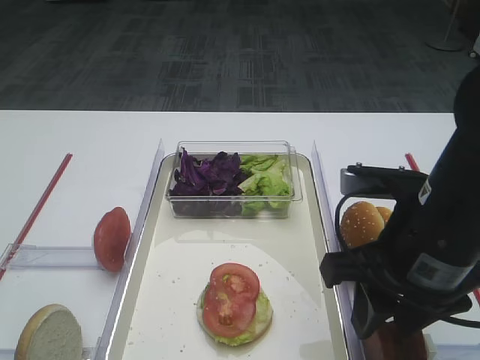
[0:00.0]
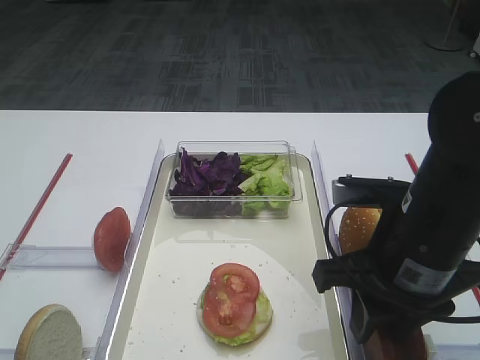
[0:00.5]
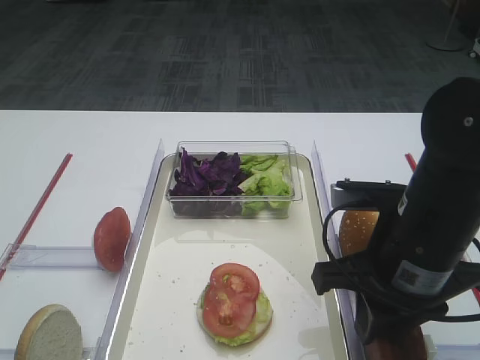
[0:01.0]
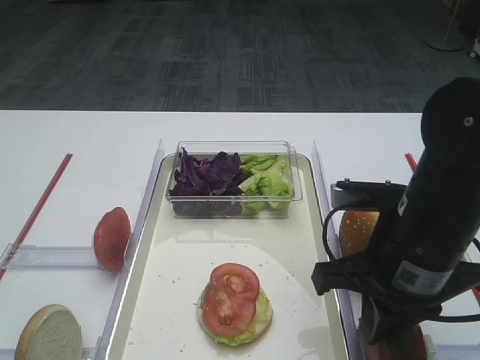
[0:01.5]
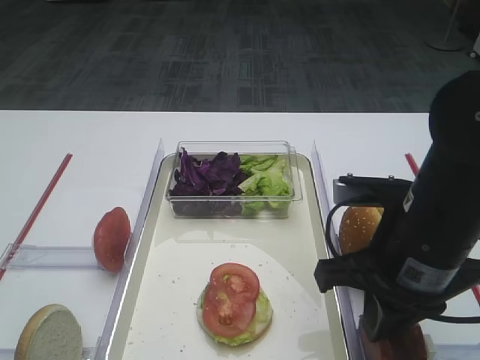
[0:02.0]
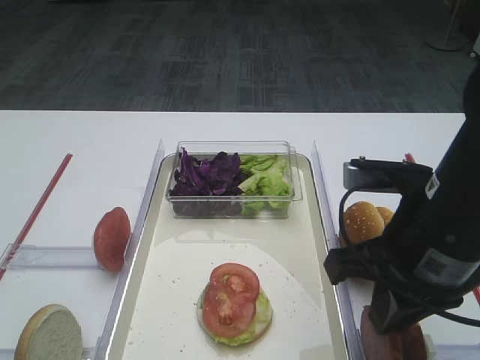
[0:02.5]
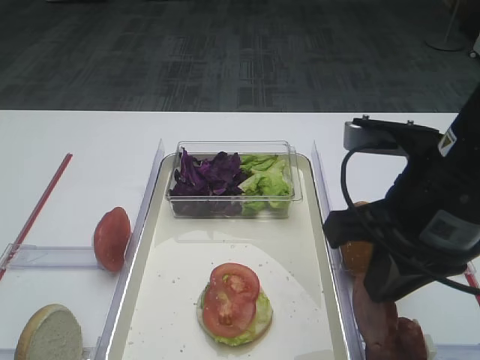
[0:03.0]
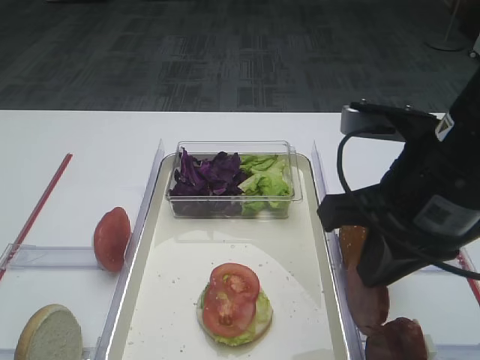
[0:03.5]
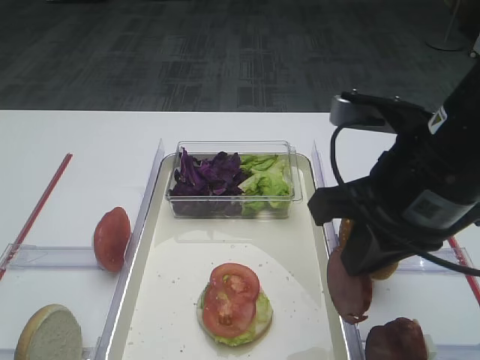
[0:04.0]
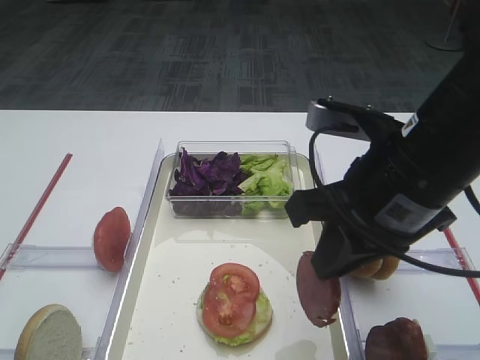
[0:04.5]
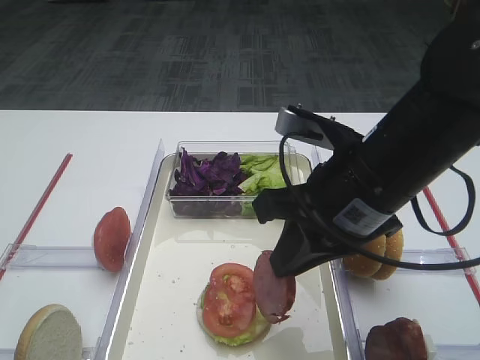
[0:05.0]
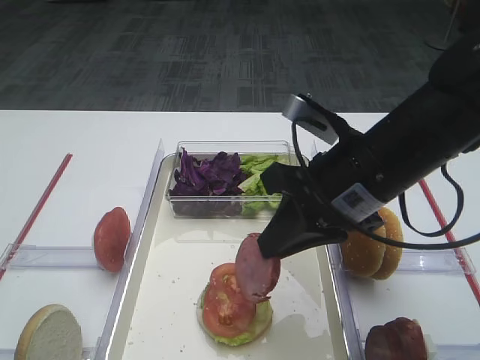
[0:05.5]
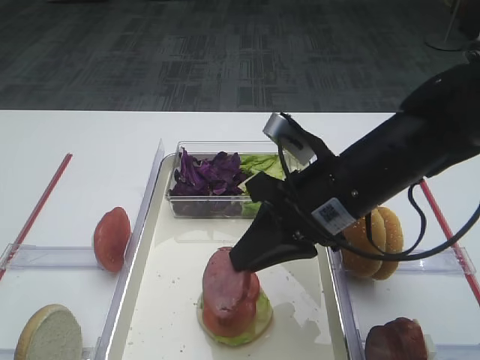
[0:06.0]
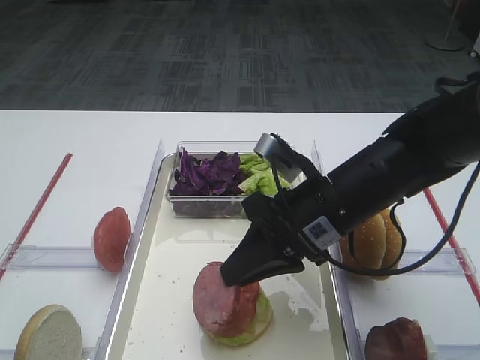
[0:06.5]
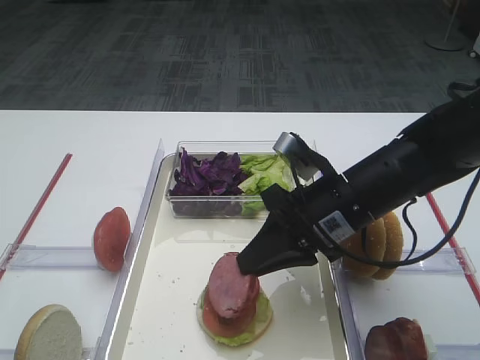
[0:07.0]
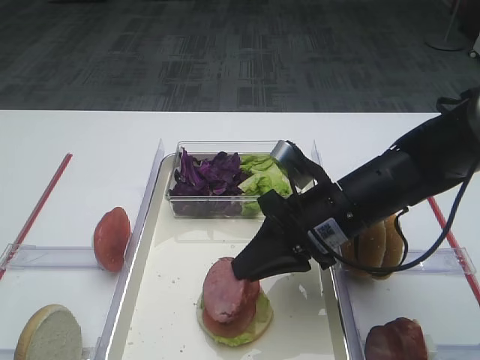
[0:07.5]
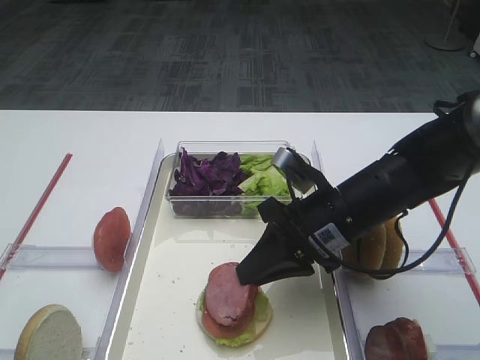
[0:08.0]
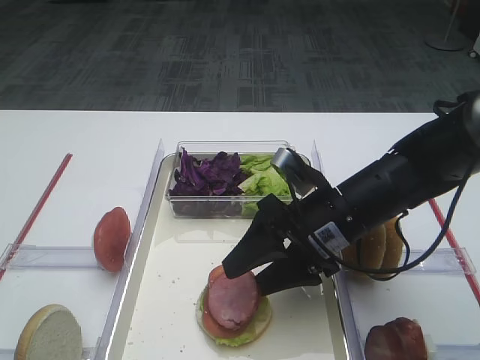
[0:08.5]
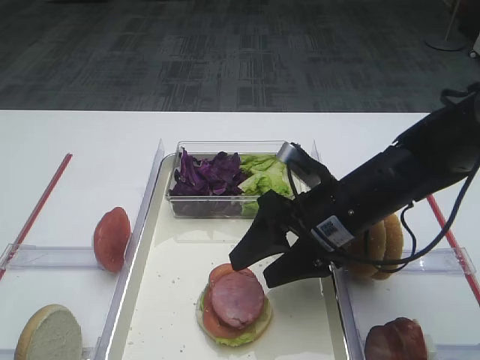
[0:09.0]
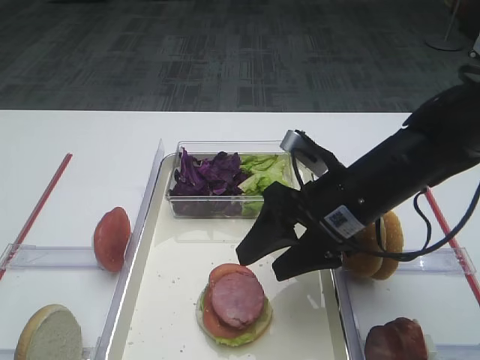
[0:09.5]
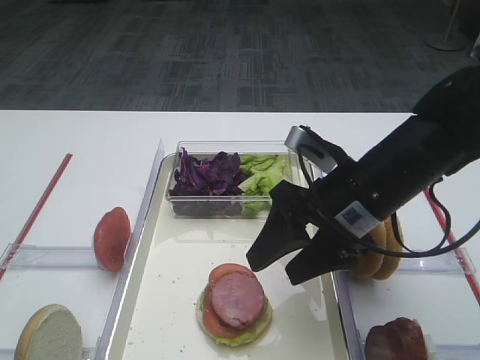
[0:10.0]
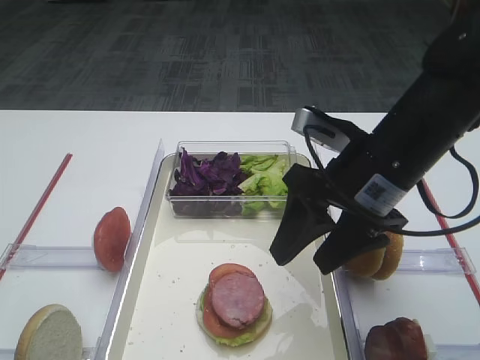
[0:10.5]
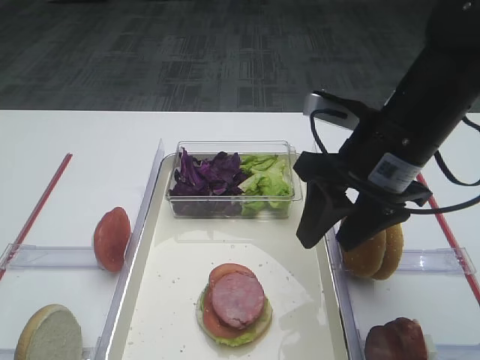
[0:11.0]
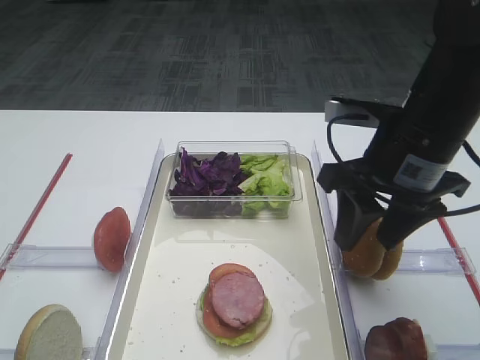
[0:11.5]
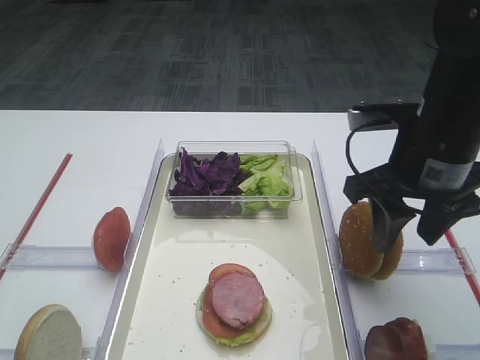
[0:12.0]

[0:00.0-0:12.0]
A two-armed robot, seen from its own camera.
Step, 0:00.0 to 0:02.5: Pick up the cutlet with the right gripper.
Step, 0:03.0 to 0:10.5: Place the cutlet on the tomato slice with the right gripper.
0:00.0 to 0:02.0: The right gripper closes its fingers.
0:02.0 to 0:04.0: The right gripper heads upward, covering roughly 5 cm.
0:04.0 to 0:06.0: The right gripper shifts approximately 10 cm downward and forward.
0:06.0 to 0:08.0: The right gripper is displaced downward by roughly 5 cm.
0:08.0 to 0:10.0: The right gripper changes place by approximately 5 cm, and opens its fingers.
0:10.0 to 0:12.0: The right gripper goes about 5 cm to the right.

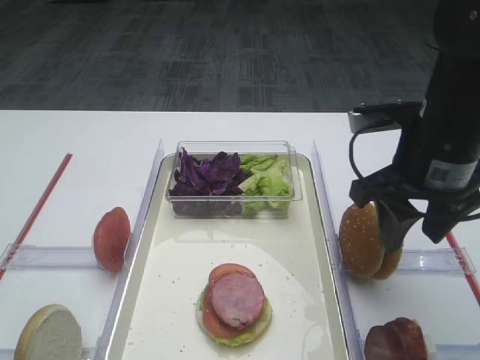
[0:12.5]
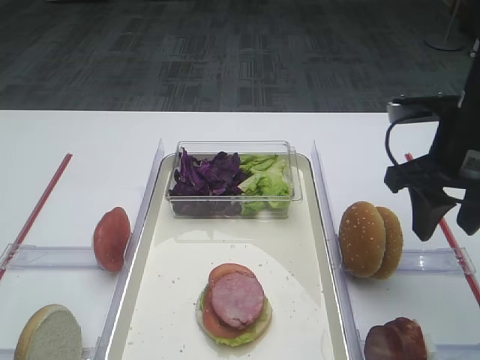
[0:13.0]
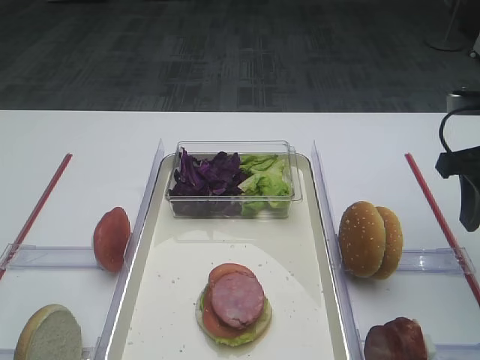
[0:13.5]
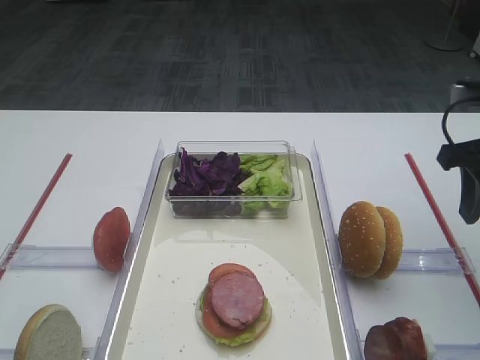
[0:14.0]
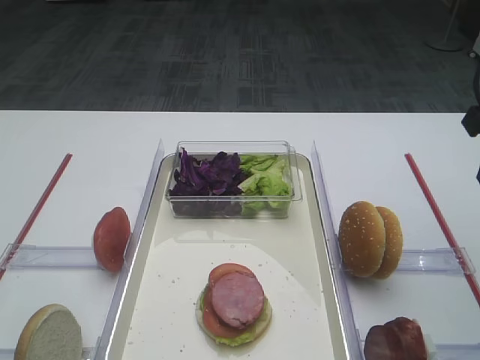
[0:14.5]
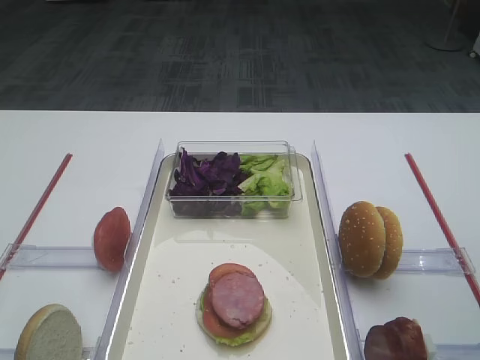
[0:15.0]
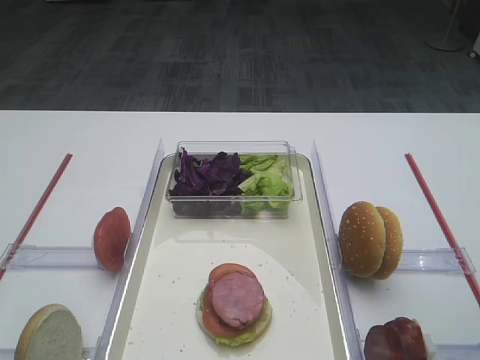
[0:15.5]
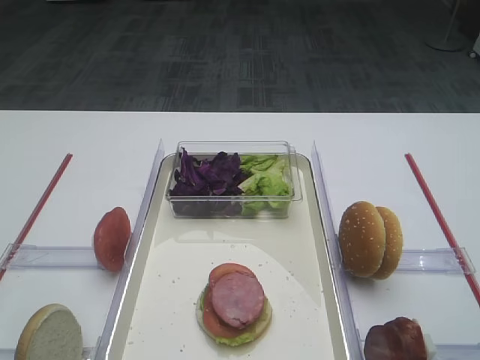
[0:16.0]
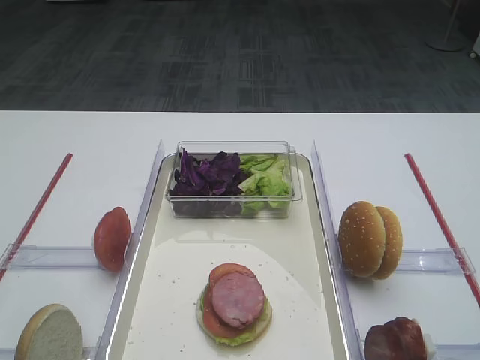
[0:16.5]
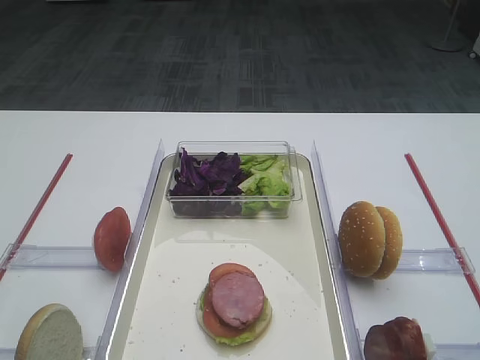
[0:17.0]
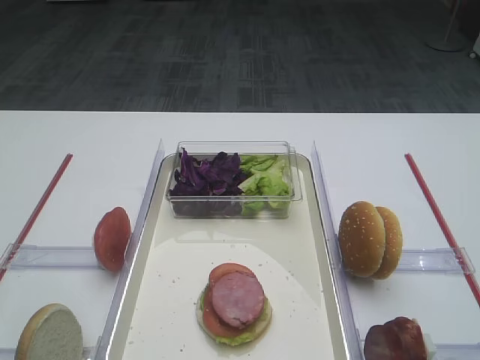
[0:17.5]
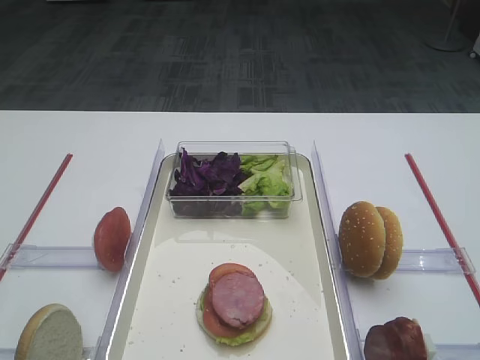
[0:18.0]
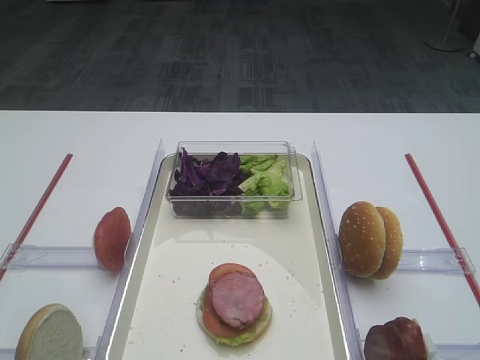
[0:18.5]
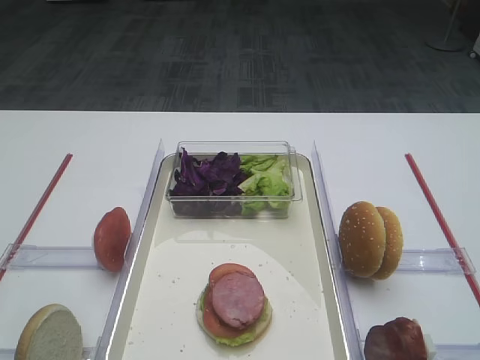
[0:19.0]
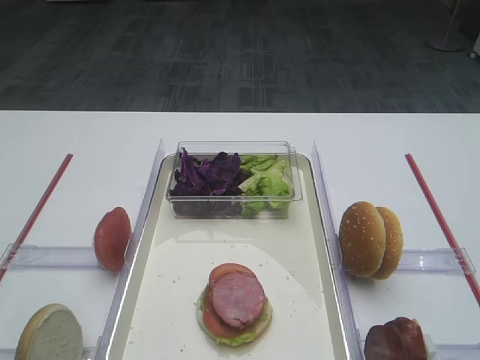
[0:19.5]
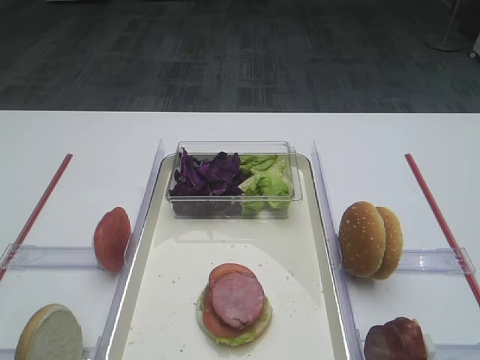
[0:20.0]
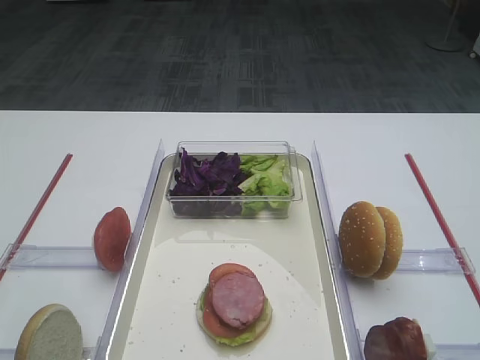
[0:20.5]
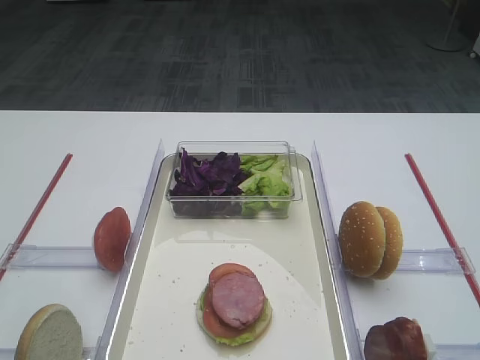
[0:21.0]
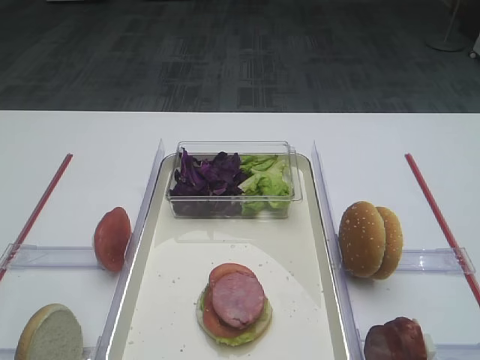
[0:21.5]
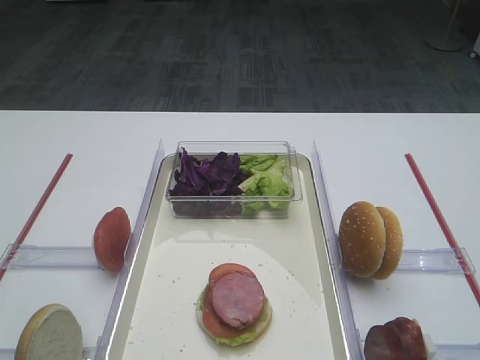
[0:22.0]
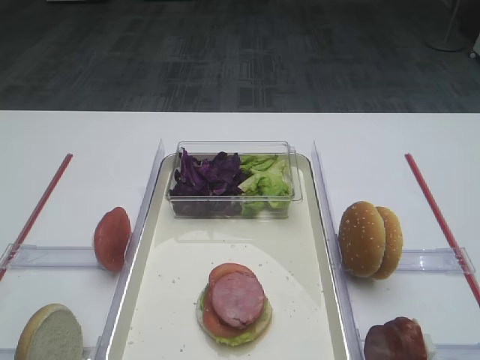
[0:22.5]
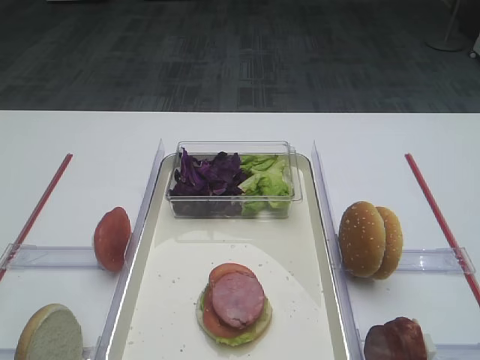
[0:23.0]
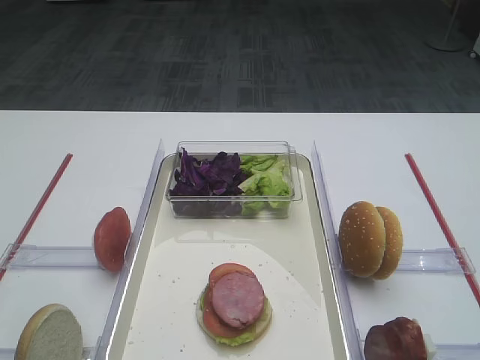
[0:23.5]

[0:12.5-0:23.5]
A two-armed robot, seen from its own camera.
0:12.5 to 0:14.5: The right gripper goes some 10 cm to the right and upward.
0:20.0 to 0:23.5: Both grippers stay put.

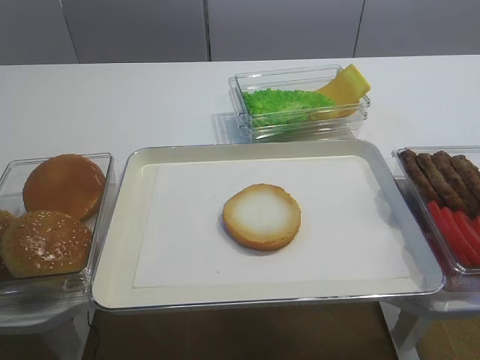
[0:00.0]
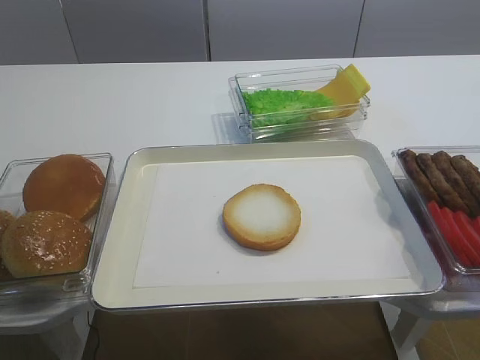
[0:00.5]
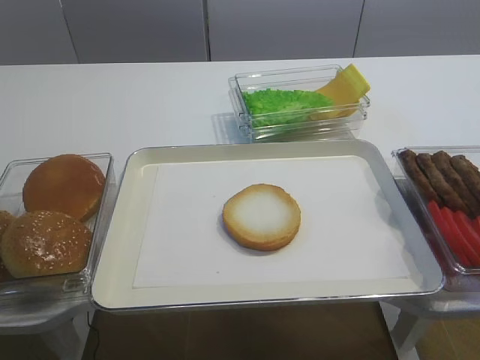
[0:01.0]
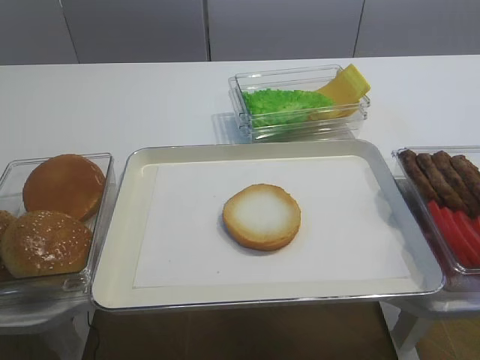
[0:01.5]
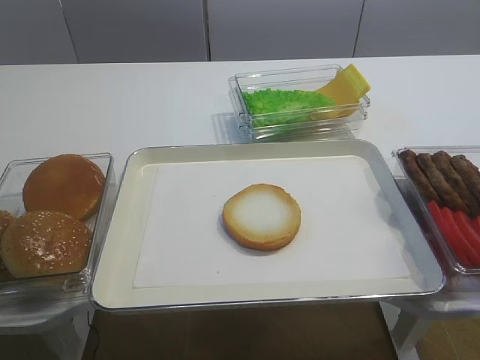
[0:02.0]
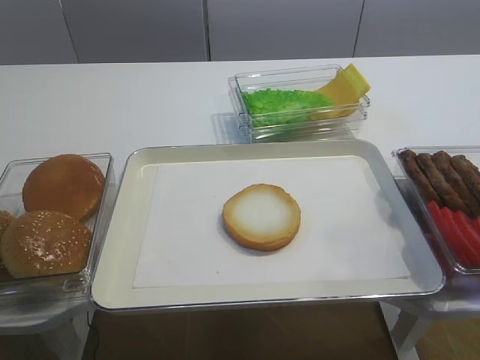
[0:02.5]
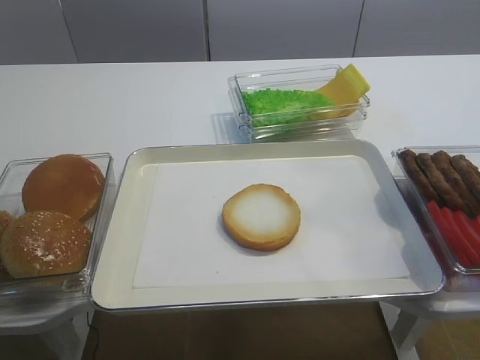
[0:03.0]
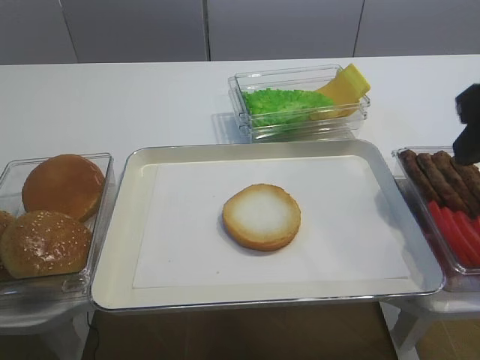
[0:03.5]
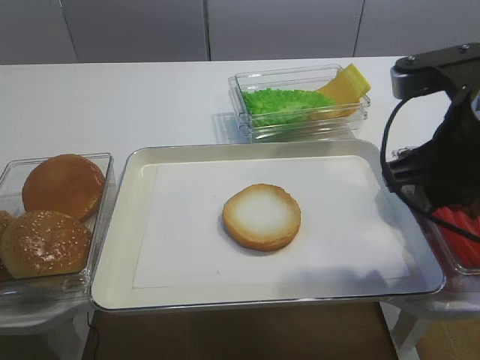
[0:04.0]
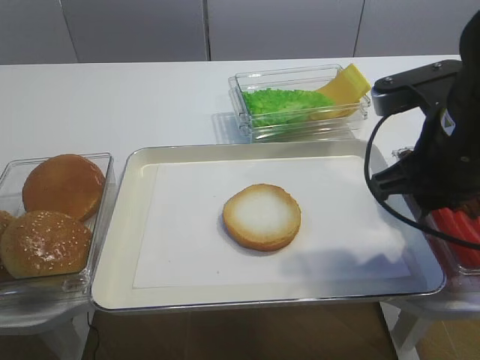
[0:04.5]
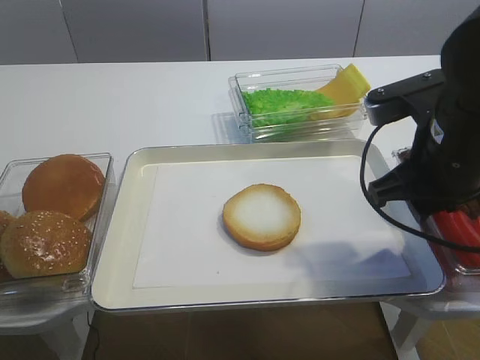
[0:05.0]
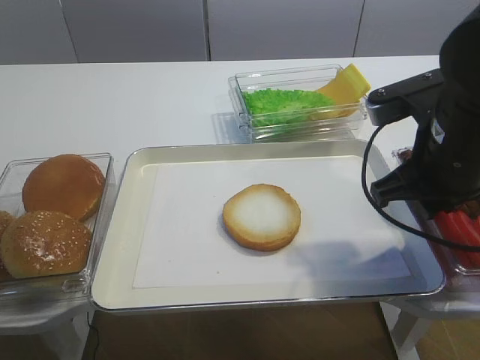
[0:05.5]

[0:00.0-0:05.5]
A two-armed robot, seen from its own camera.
0:02.0 to 0:03.5: The right gripper shifts roughly 20 cm forward.
0:03.5 to 0:05.5: The right gripper moves downward, some 10 cm, and closes.
